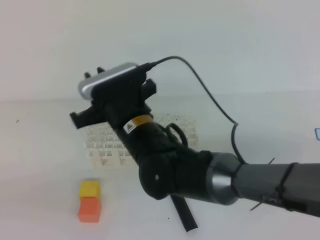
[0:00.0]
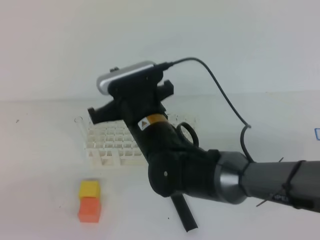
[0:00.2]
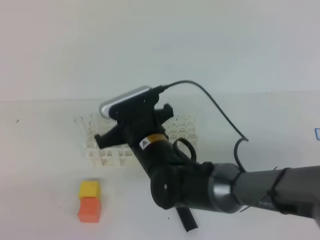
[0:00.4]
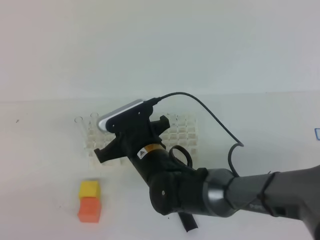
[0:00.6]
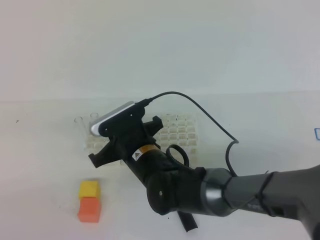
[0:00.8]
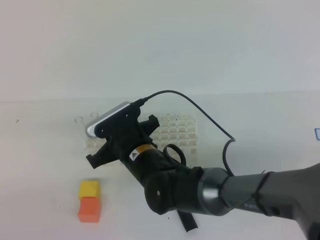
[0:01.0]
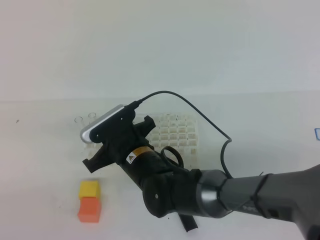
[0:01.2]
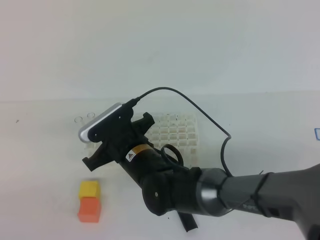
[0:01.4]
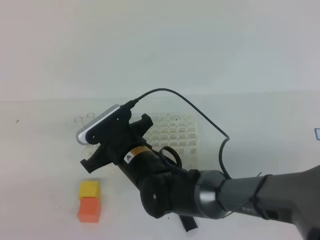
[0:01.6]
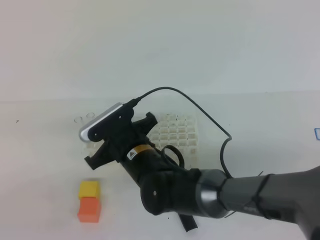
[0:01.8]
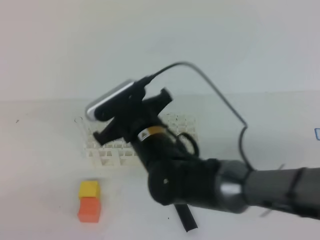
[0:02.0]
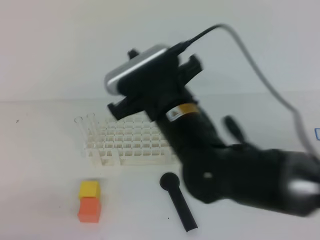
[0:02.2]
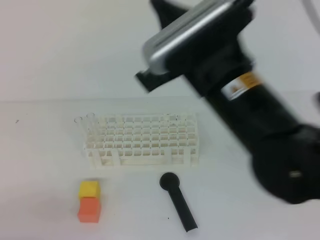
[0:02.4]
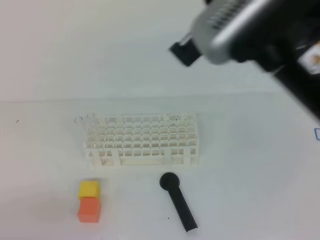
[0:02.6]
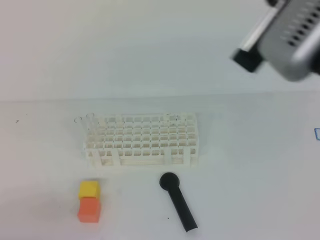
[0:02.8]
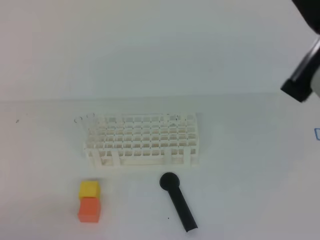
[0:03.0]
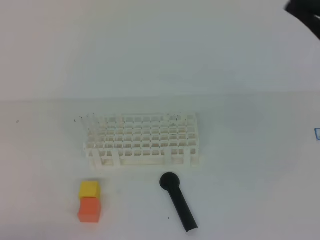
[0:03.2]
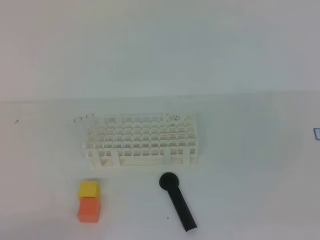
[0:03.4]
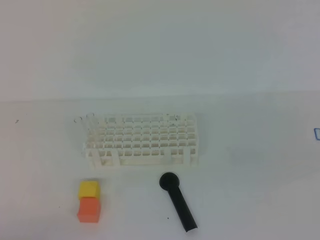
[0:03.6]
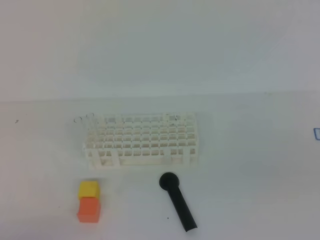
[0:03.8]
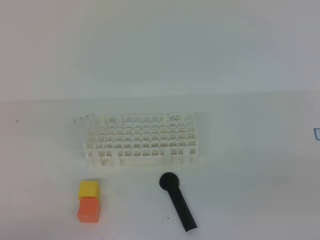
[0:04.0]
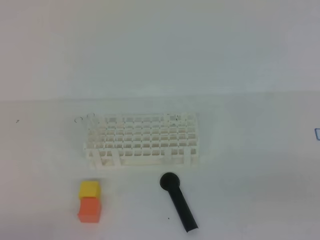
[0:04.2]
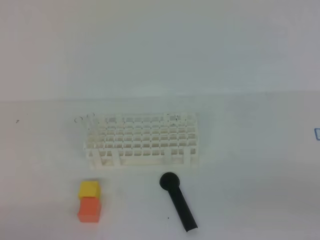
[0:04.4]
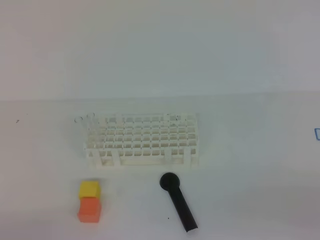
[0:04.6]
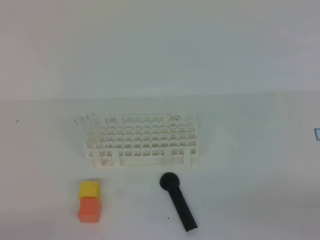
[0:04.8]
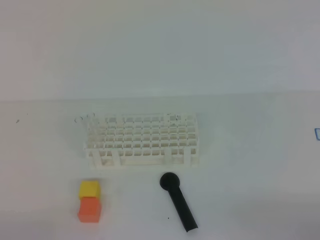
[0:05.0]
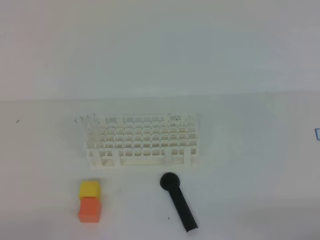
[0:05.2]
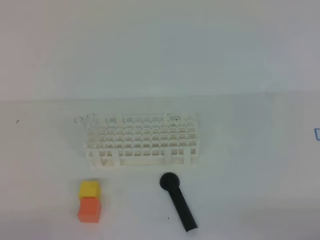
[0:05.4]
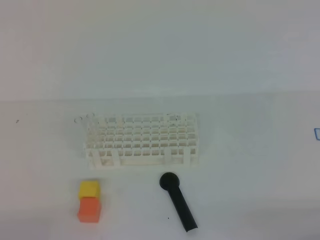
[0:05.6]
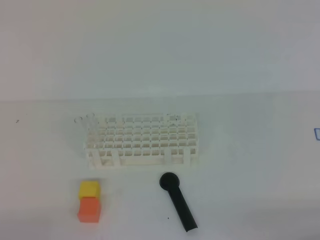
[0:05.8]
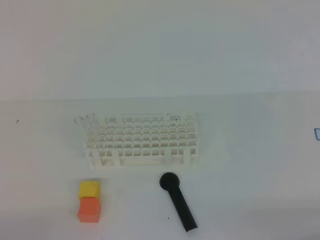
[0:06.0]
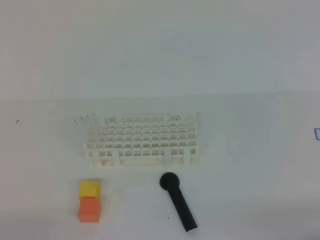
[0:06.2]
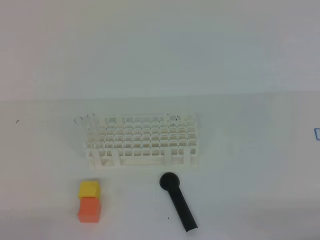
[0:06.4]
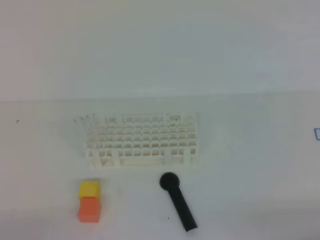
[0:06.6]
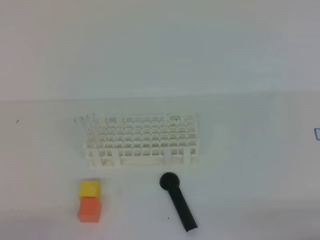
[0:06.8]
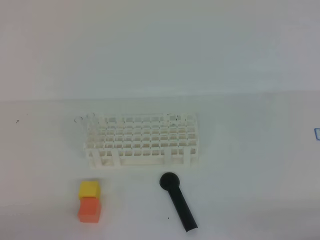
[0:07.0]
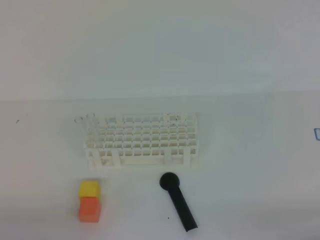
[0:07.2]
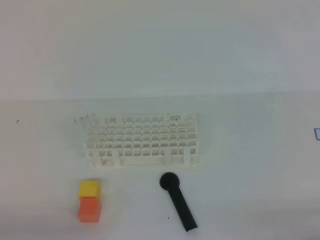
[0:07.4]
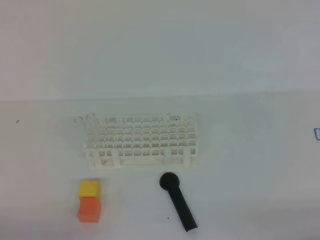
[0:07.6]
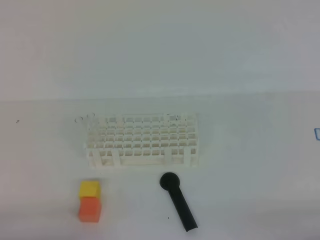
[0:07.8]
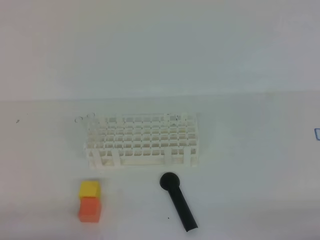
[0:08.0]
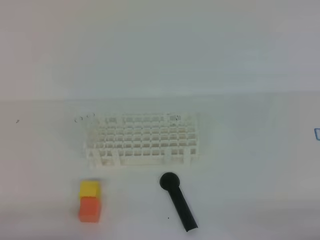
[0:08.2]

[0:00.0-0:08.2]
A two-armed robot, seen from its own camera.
0:00.0 to 0:01.6: The right gripper moves downward, approximately 5 cm, and closes its fingers.
0:01.6 to 0:03.2: The right gripper is displaced upward, to the right and backward by approximately 40 cm; the left gripper heads downward, covering approximately 5 cm.
0:03.2 to 0:05.0: The right gripper moves downward and to the right, about 25 cm.
